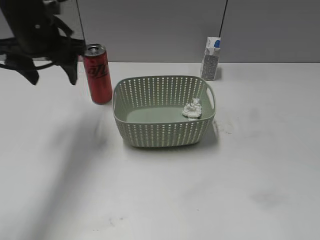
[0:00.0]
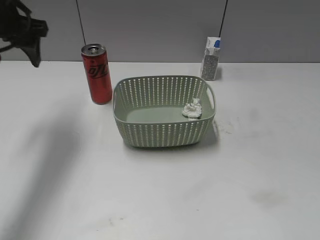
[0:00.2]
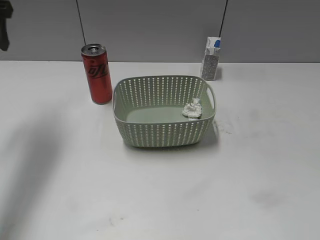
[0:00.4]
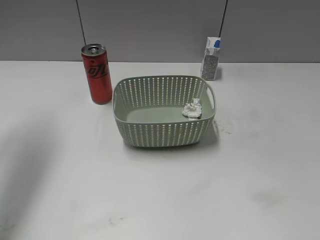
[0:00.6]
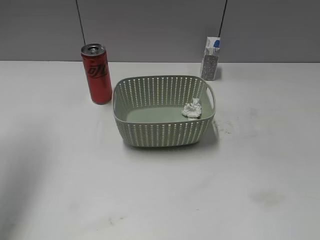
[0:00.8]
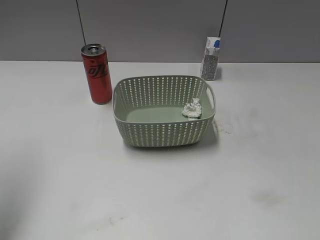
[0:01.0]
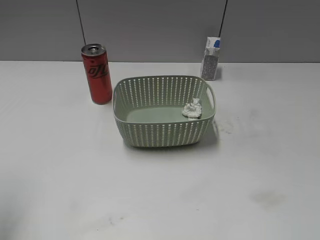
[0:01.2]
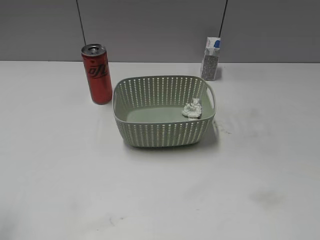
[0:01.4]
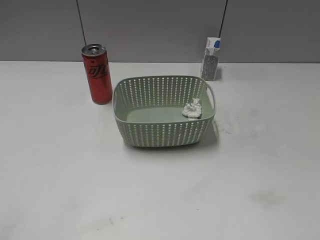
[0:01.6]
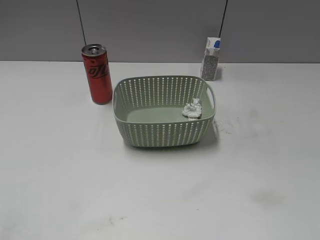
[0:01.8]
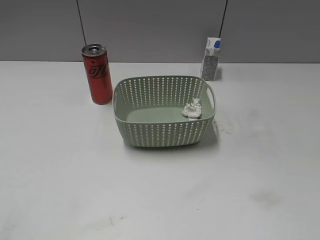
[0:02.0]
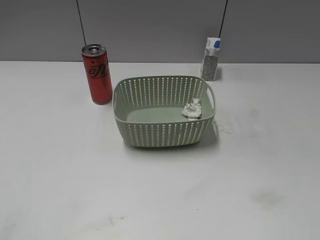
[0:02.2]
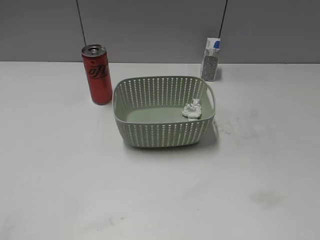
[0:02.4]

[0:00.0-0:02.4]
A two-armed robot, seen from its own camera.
0:00.0 to 0:01.2: The left gripper shifts approximately 25 cm backward, to the left and upward.
0:01.2 to 0:02.4: The left gripper shifts about 20 cm backward and downward.
